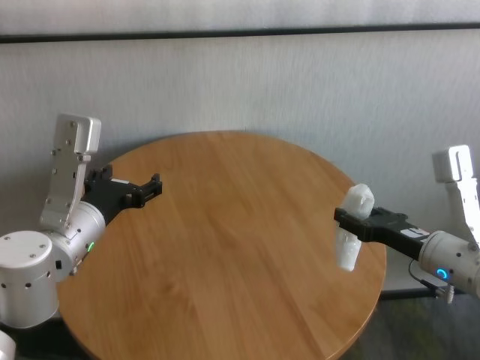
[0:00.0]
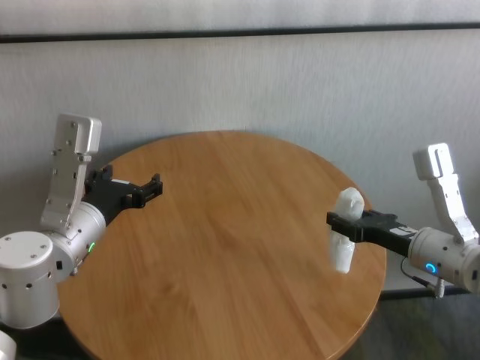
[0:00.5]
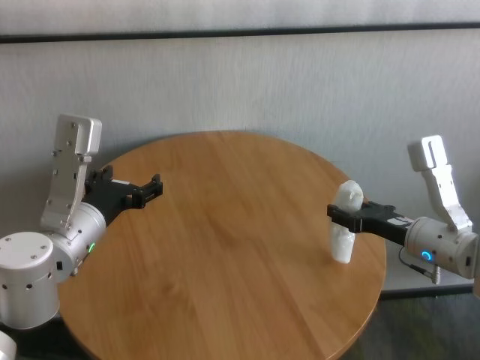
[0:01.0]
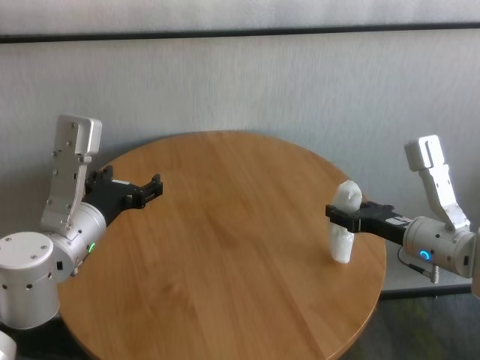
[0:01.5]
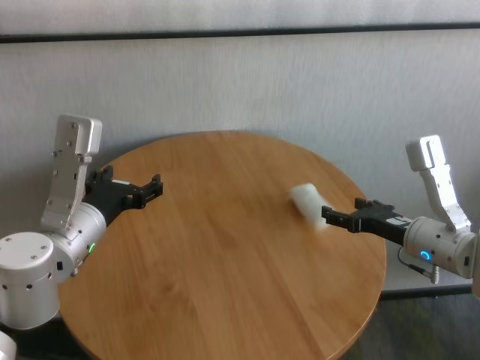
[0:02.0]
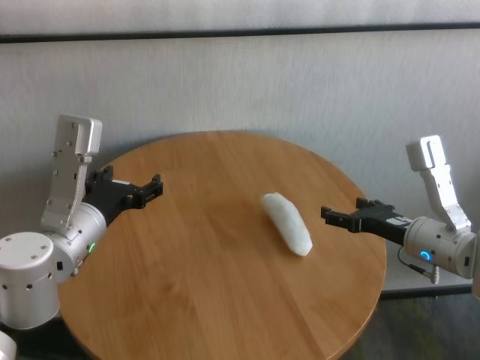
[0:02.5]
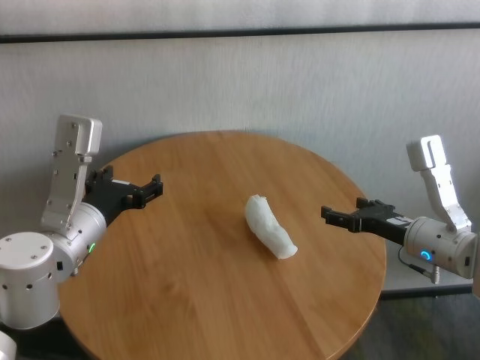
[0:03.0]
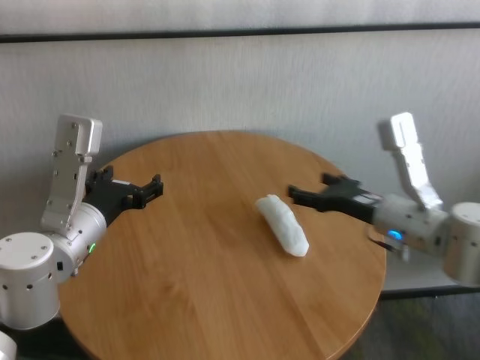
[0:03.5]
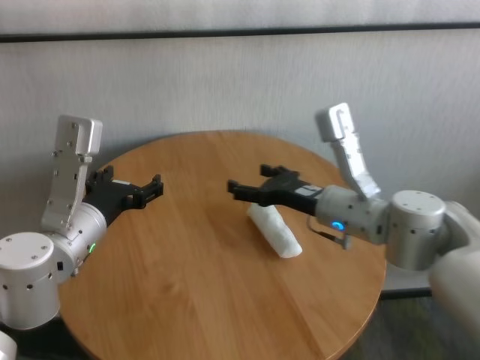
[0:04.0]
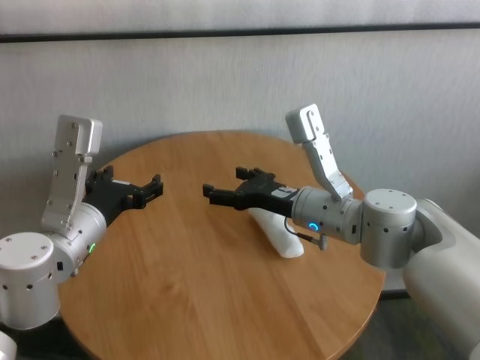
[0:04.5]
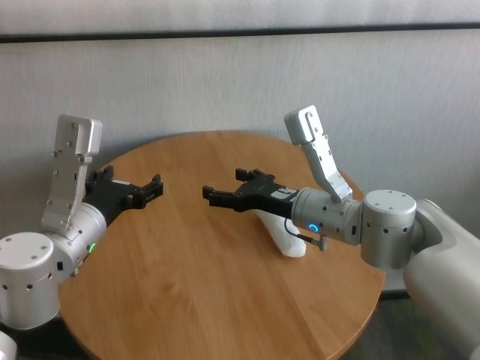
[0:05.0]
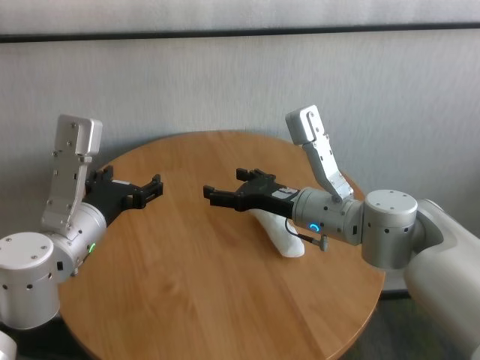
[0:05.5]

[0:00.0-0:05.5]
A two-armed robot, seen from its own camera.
Task of the whole recording: One hand took the sandbag from the other hand and placed it on the table.
Step, 0:00.0 to 0:02.0: Place the paper ball on the table with right gripper.
